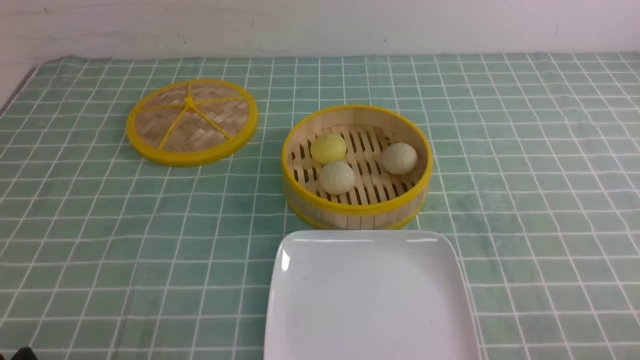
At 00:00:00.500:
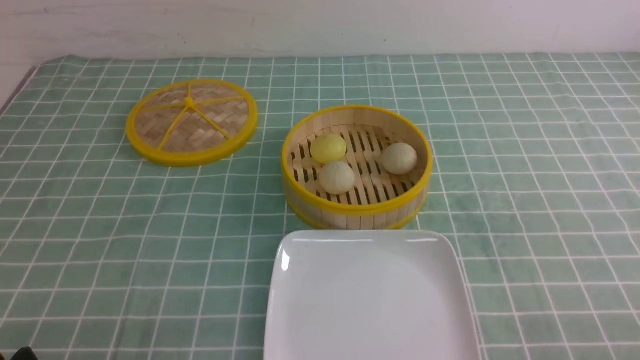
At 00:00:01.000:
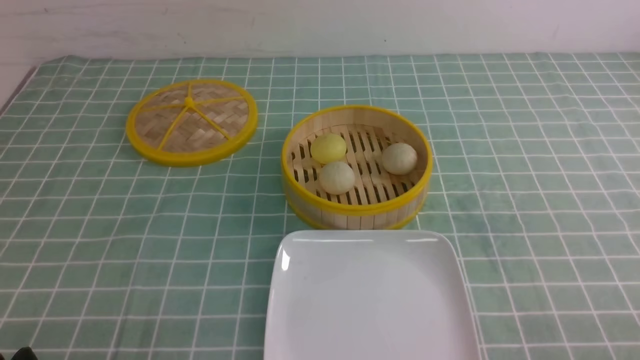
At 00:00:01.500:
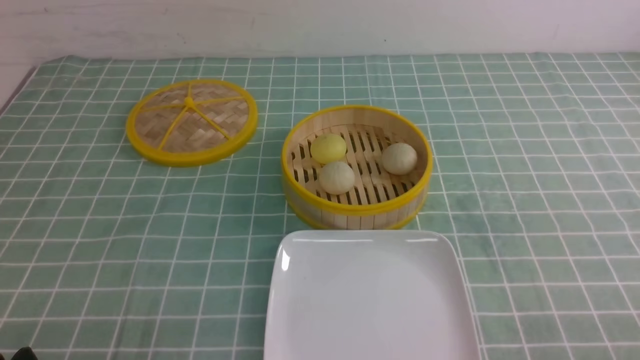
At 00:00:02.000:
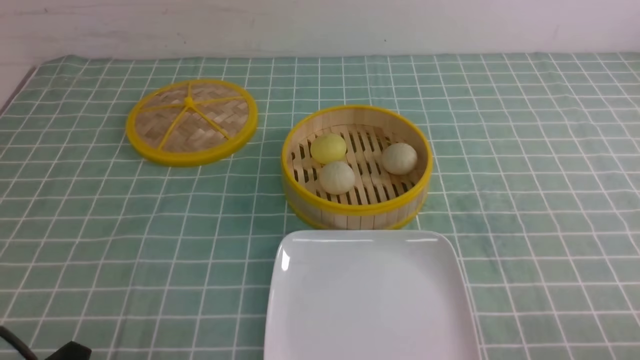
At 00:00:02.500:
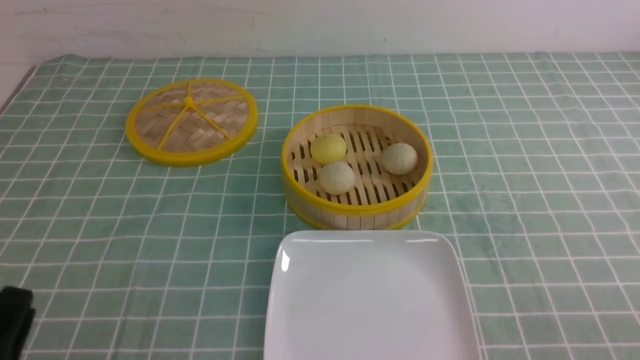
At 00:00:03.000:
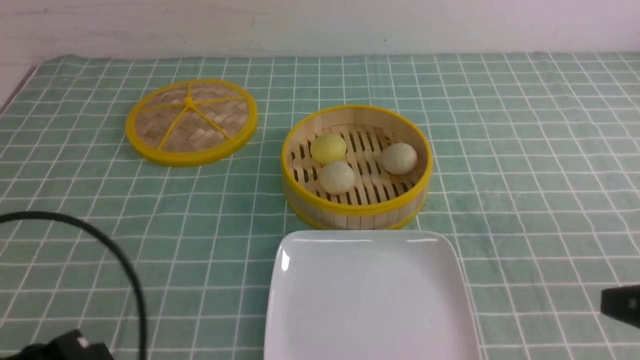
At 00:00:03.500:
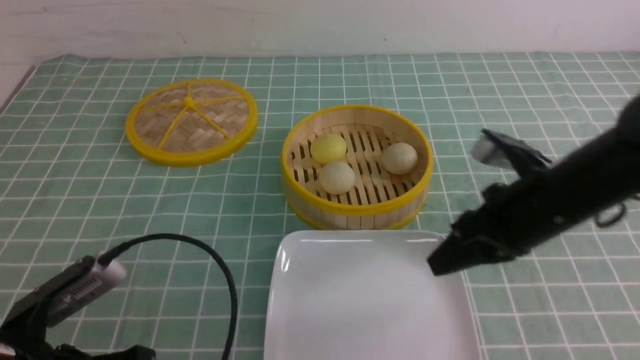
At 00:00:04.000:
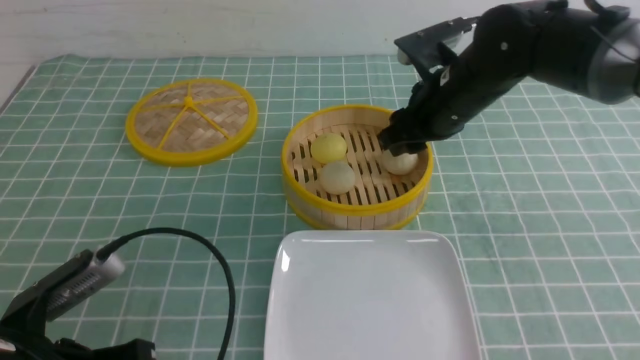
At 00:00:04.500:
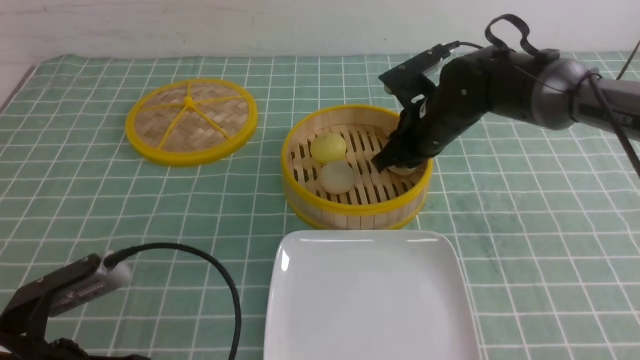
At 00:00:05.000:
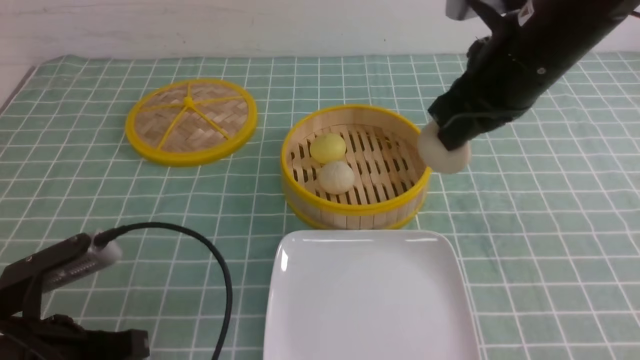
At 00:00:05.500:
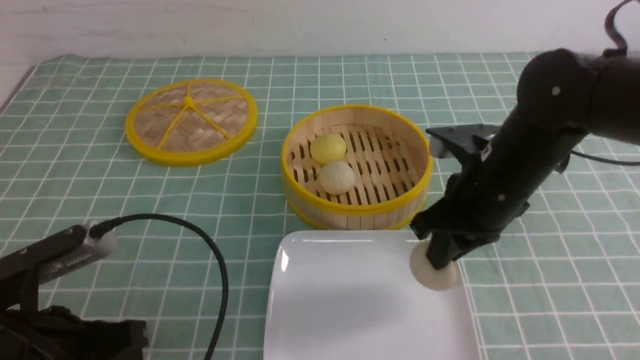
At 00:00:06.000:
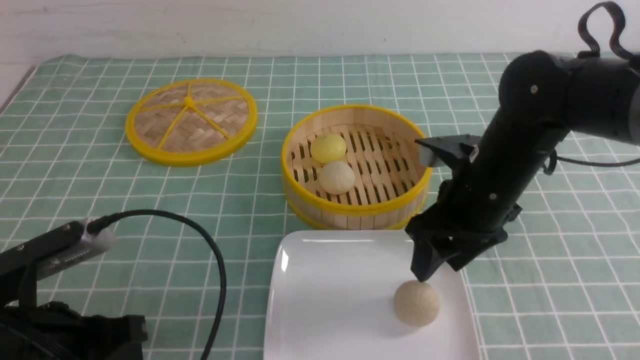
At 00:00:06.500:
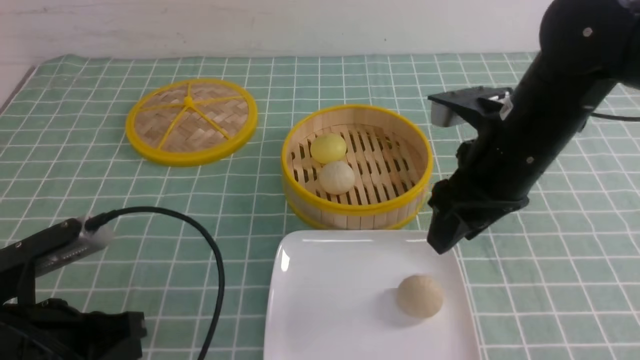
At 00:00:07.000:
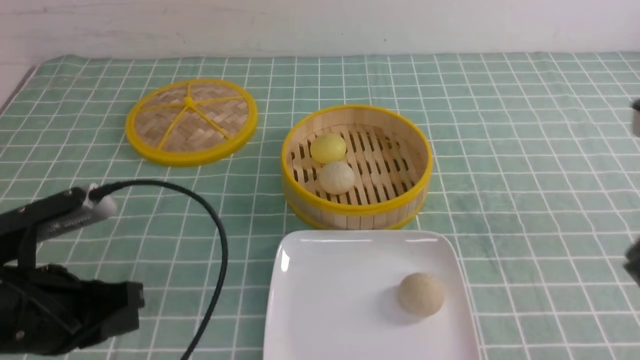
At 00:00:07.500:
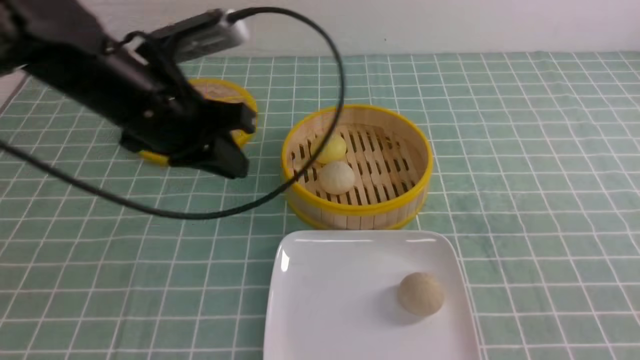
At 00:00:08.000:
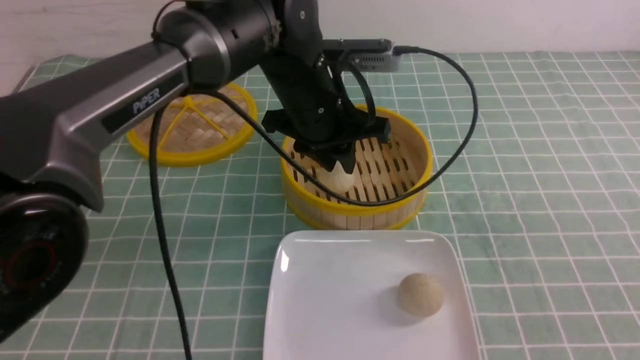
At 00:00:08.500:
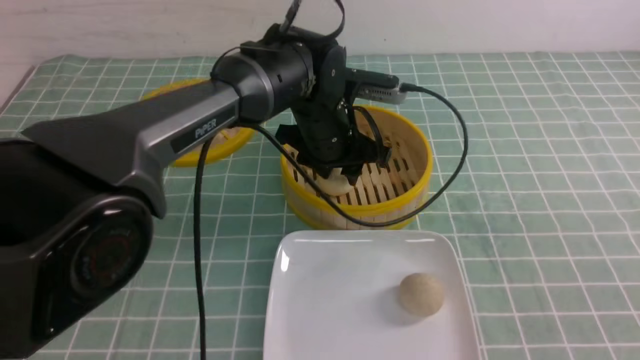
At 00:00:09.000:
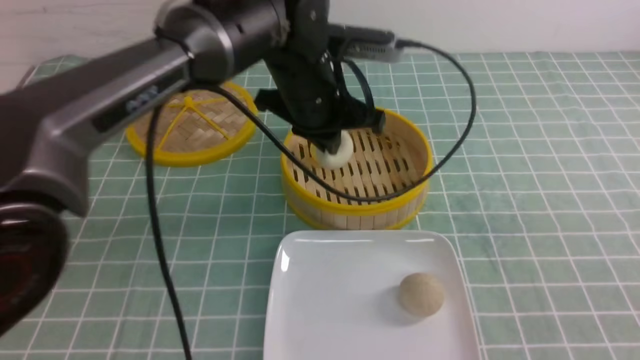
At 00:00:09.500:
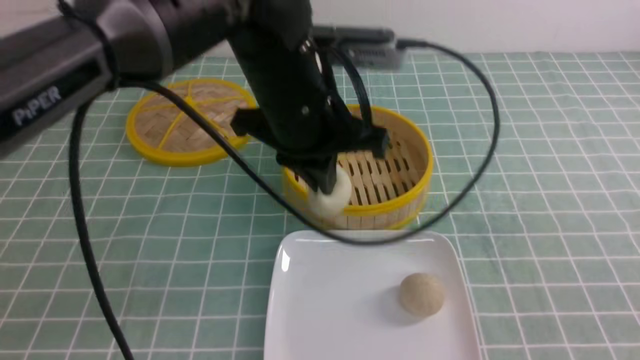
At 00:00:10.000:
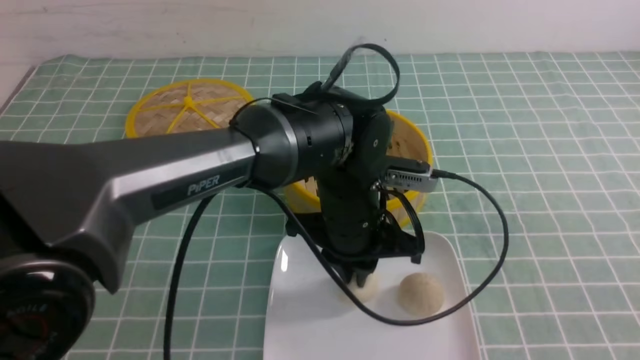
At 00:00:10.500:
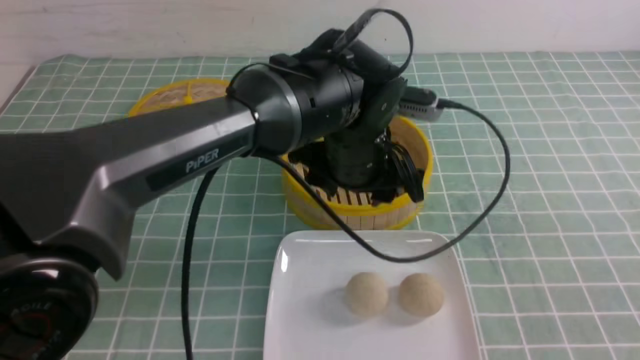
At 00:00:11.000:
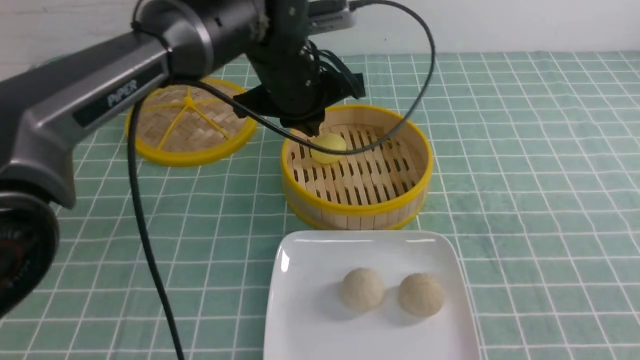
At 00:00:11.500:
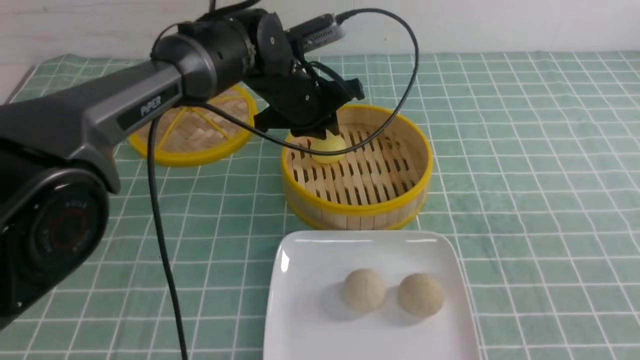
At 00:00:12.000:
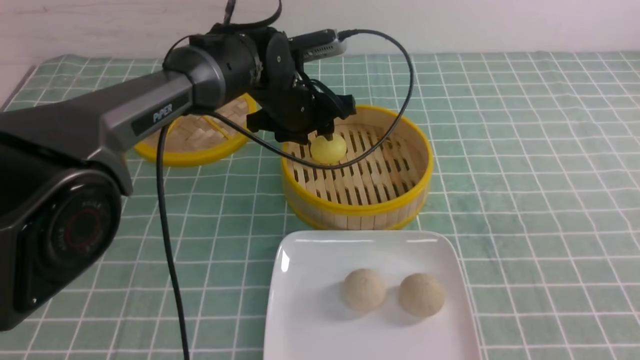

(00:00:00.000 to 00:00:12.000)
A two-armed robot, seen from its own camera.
Step, 00:00:00.000 - 00:00:04.500: use the right arm to grab the steamed stuffed bun that is closest to it.
Step, 00:00:05.000 - 00:00:05.500: use the right arm to put the steamed stuffed bun into the plate.
Step, 00:00:06.000 - 00:00:08.500: use the left arm to grab the steamed stuffed bun that is closest to it.
Step, 00:00:09.000 - 00:00:10.000: use the left arm to put the steamed stuffed bun into the plate.
00:00:02.000 - 00:00:04.000: The left gripper heads forward, covering some 5 cm, and closes its fingers. Meanwhile the right gripper heads forward and to the left, covering about 40 cm, and closes, then opens again.
00:00:04.000 - 00:00:06.000: The right gripper moves backward, roughly 10 cm, and closes, then reopens.
00:00:06.000 - 00:00:08.000: The right gripper is displaced backward and to the right by roughly 30 cm, and closes its fingers. The left gripper goes about 30 cm forward and to the right, and opens up.
00:00:08.000 - 00:00:10.000: The left gripper moves backward and downward, some 10 cm.
00:00:10.000 - 00:00:12.000: The left gripper moves forward, roughly 15 cm, and opens up.

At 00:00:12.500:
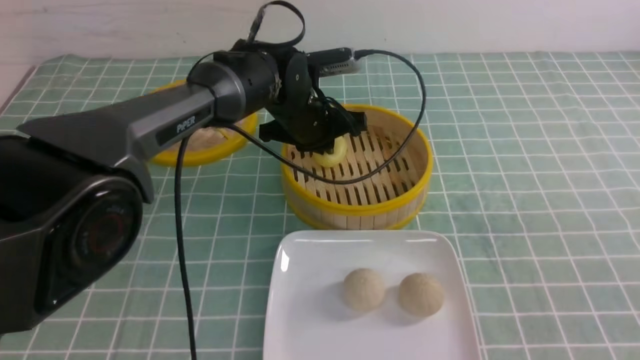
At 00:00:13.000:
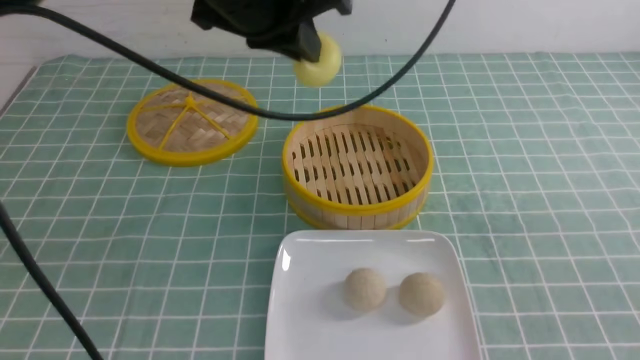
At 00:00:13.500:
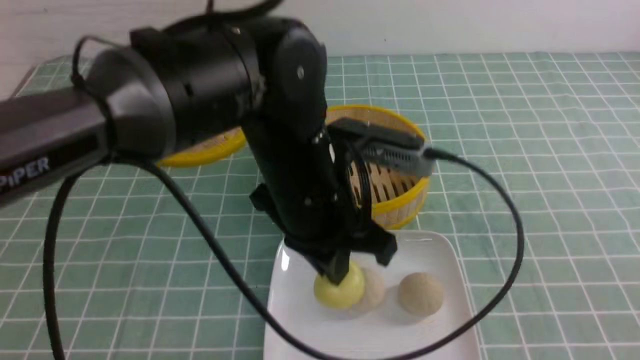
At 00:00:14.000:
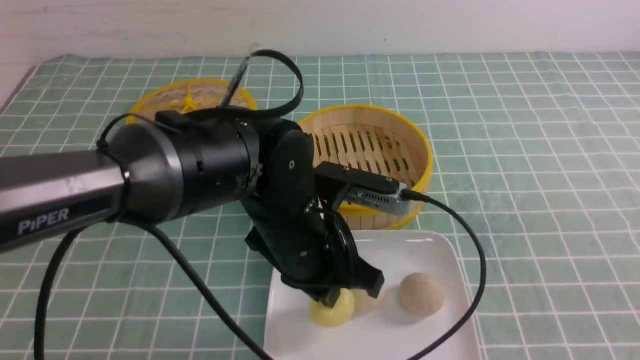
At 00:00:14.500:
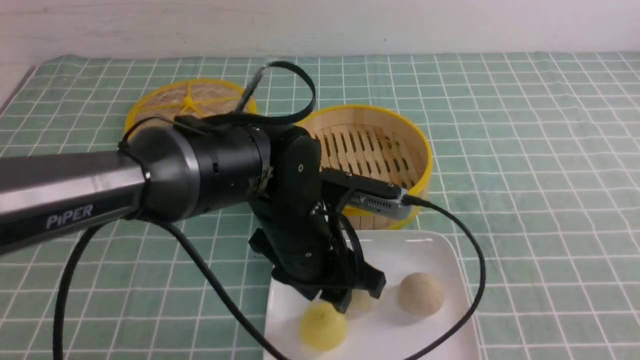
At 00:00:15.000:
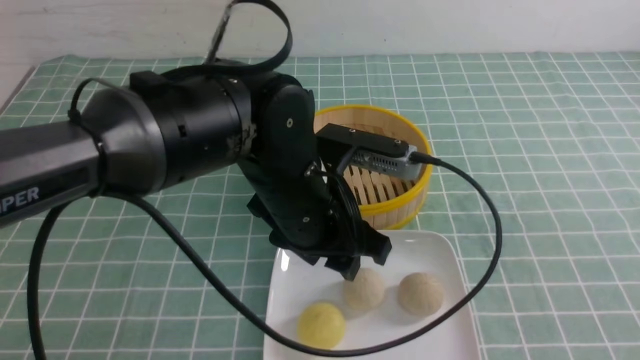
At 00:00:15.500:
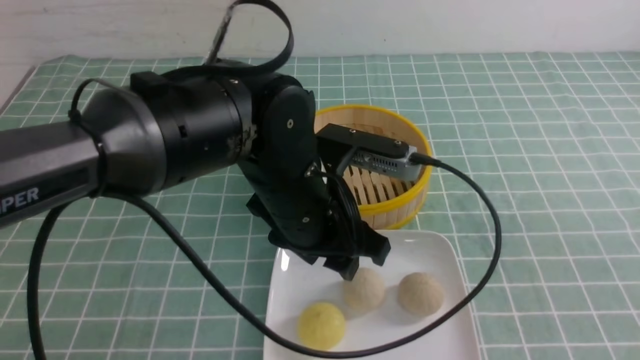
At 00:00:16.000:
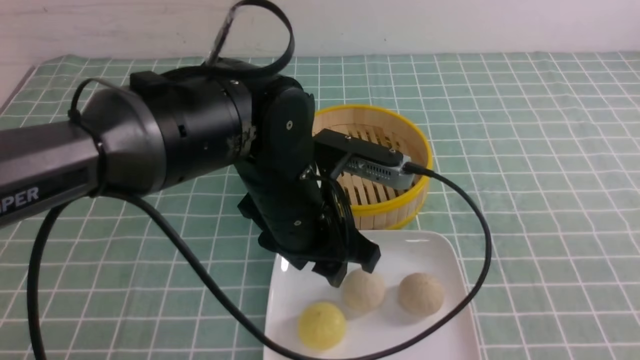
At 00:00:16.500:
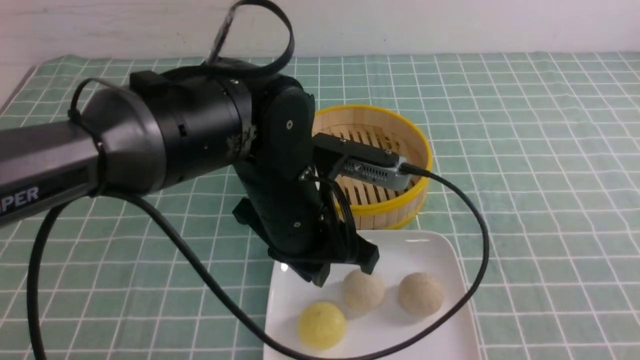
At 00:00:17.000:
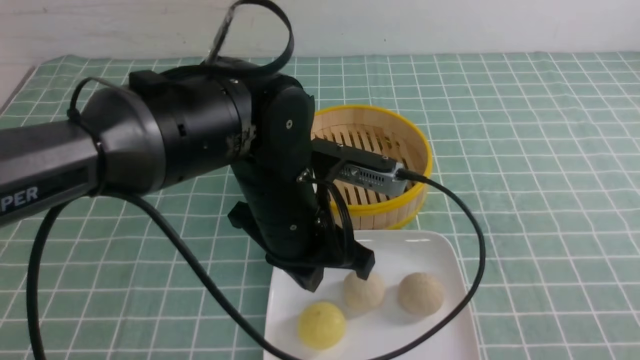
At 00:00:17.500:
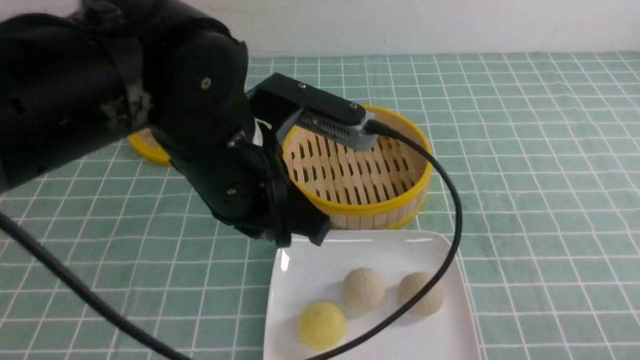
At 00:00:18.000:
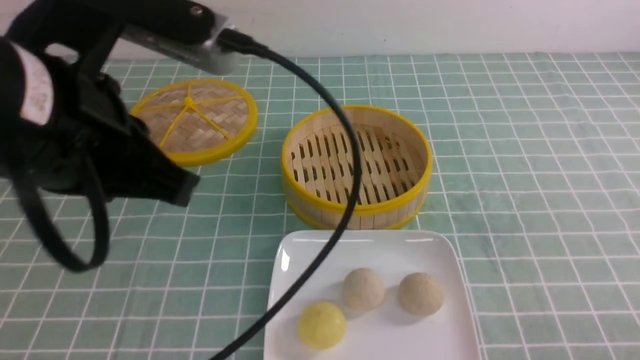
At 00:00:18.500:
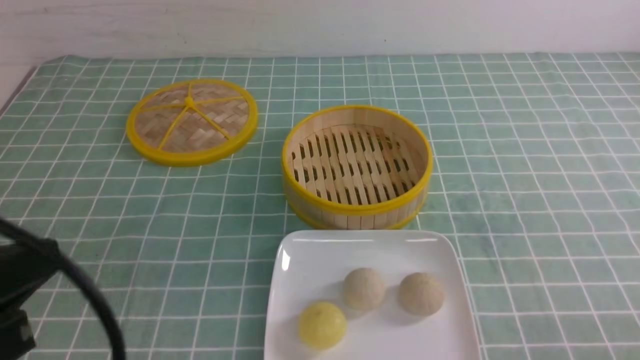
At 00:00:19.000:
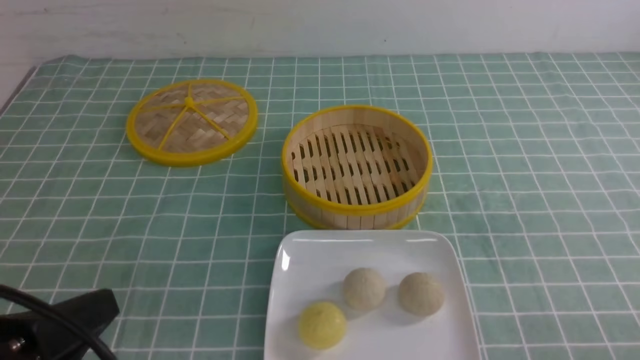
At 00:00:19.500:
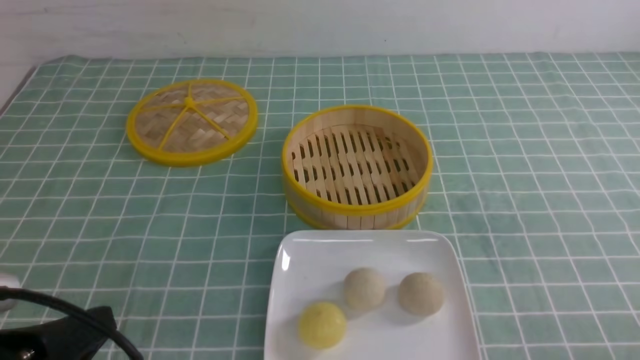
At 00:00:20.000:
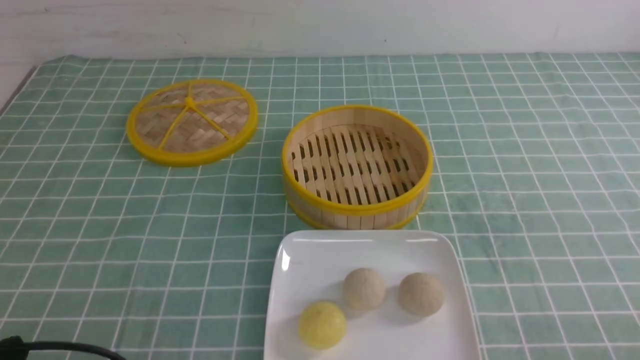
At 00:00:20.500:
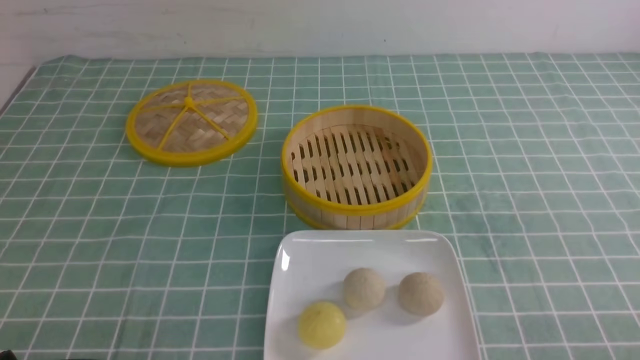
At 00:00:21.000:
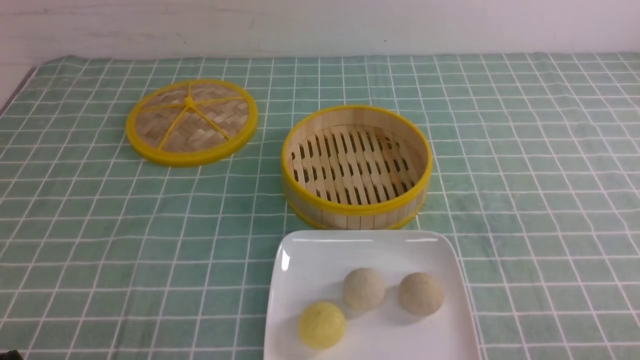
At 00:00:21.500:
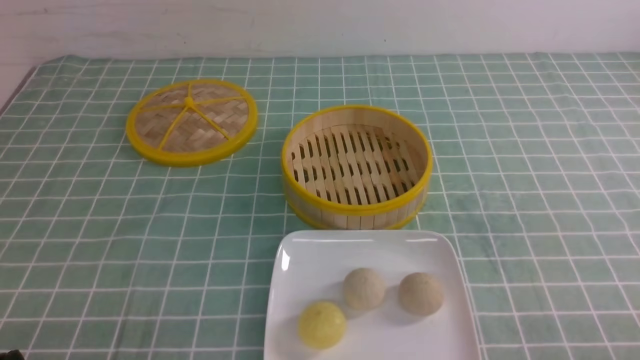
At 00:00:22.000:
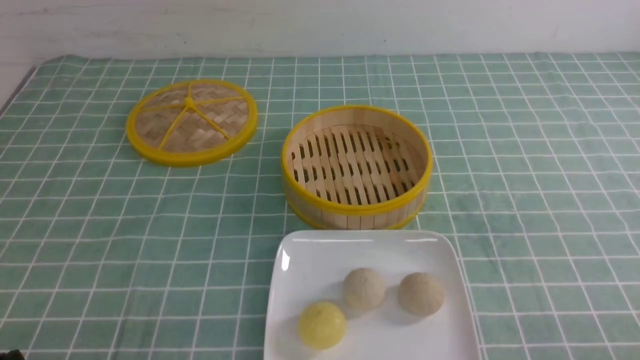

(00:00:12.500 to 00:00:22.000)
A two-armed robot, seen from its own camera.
Step, 00:00:13.000 - 00:00:14.500: use the left arm to put the steamed stuffed bun into the plate.
00:00:12.500 - 00:00:14.500: The left gripper shifts roughly 20 cm backward, and opens its fingers.
00:00:14.500 - 00:00:16.500: The left gripper closes its fingers.
00:00:16.500 - 00:00:18.000: The left gripper travels upward, to the left and backward by roughly 20 cm. Meanwhile the right gripper is displaced downward by about 15 cm.
00:00:18.000 - 00:00:20.000: The left gripper moves downward, to the left and backward, about 25 cm.
